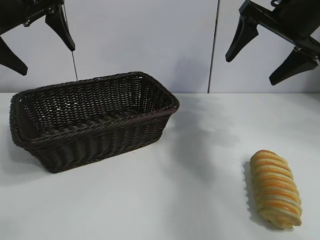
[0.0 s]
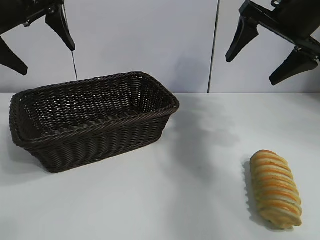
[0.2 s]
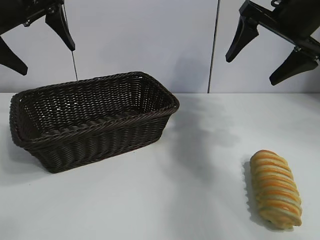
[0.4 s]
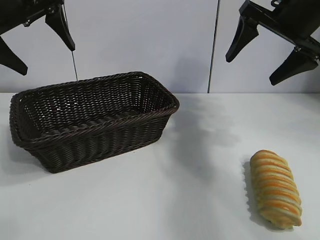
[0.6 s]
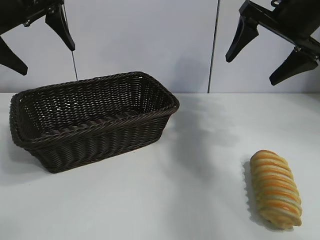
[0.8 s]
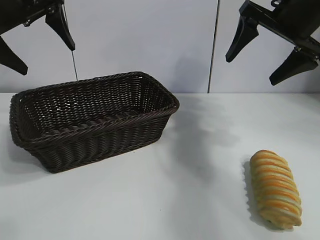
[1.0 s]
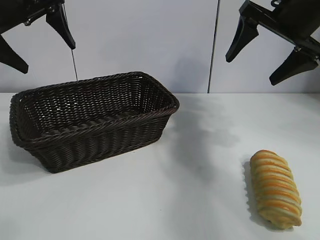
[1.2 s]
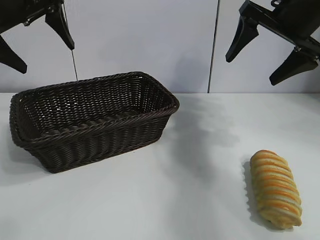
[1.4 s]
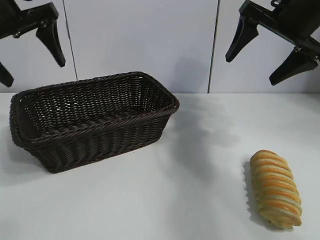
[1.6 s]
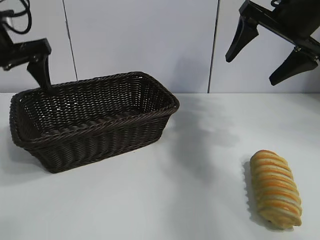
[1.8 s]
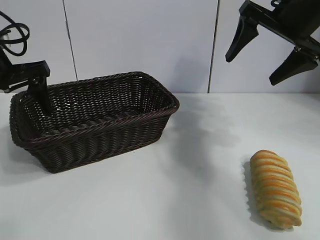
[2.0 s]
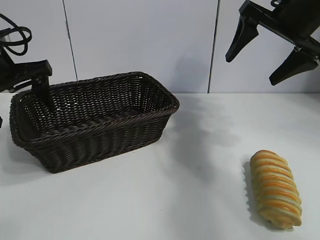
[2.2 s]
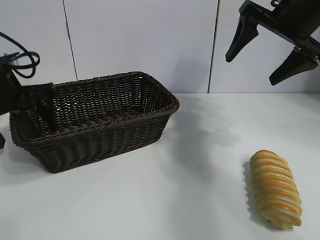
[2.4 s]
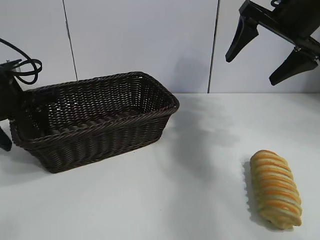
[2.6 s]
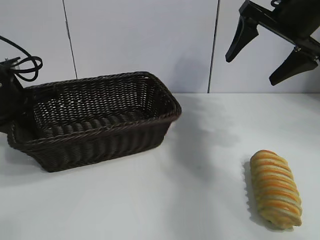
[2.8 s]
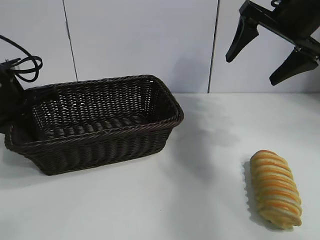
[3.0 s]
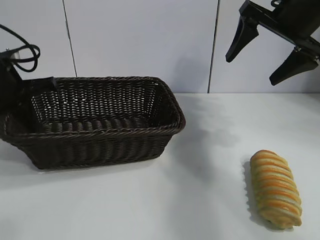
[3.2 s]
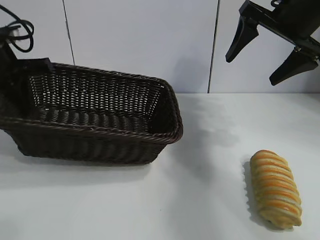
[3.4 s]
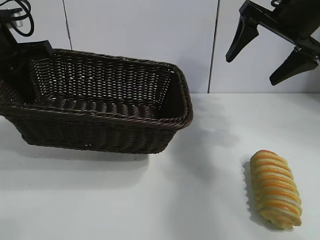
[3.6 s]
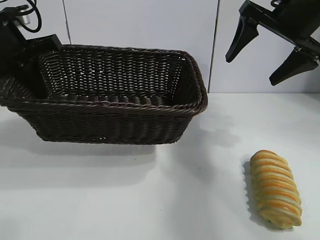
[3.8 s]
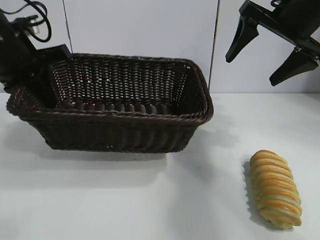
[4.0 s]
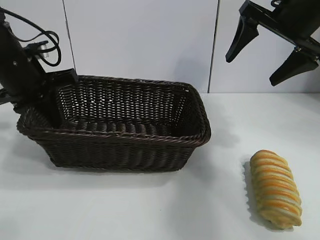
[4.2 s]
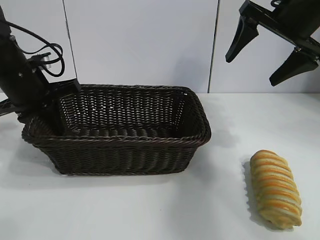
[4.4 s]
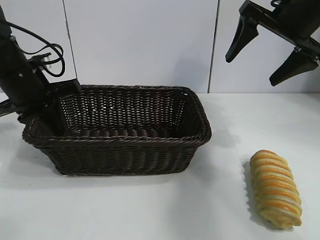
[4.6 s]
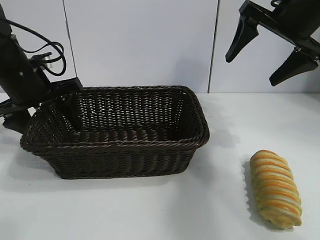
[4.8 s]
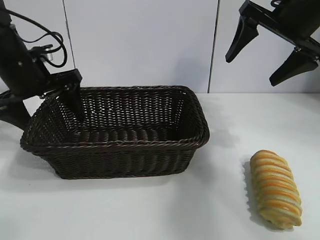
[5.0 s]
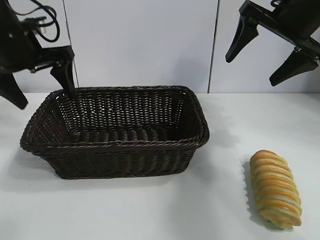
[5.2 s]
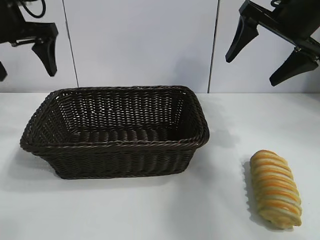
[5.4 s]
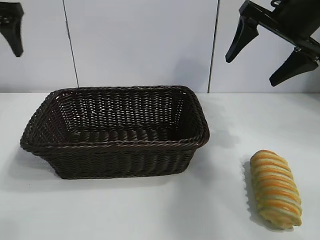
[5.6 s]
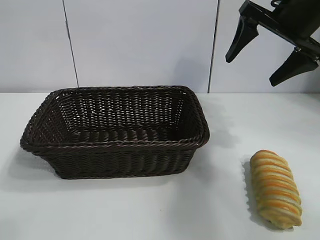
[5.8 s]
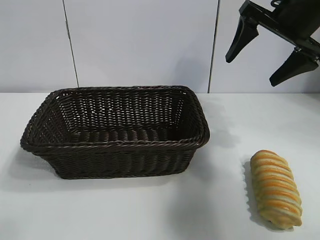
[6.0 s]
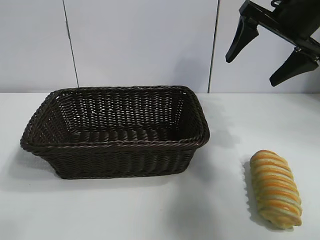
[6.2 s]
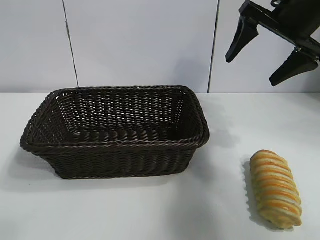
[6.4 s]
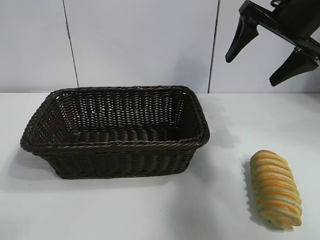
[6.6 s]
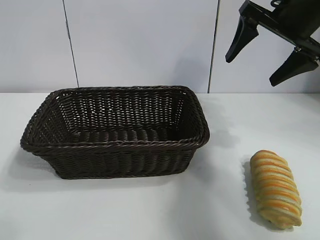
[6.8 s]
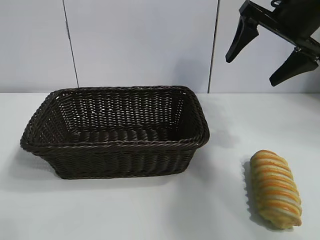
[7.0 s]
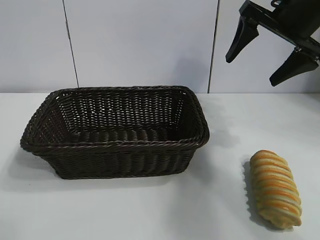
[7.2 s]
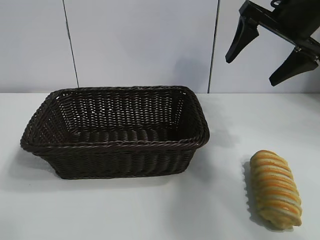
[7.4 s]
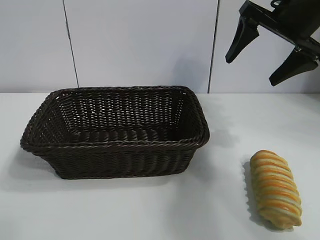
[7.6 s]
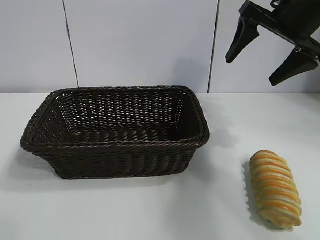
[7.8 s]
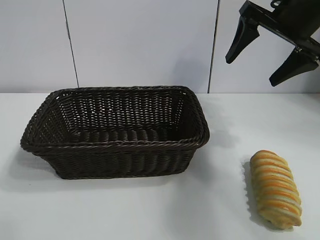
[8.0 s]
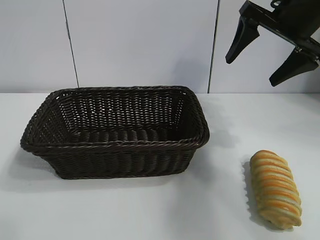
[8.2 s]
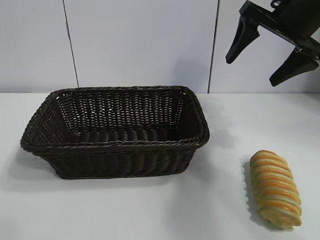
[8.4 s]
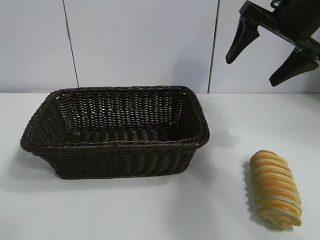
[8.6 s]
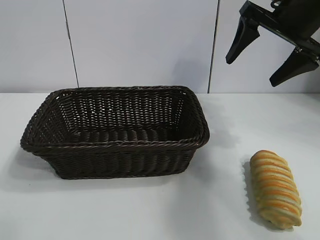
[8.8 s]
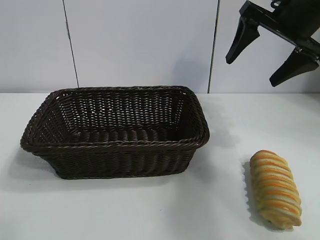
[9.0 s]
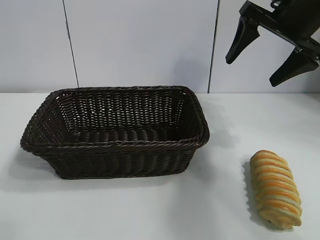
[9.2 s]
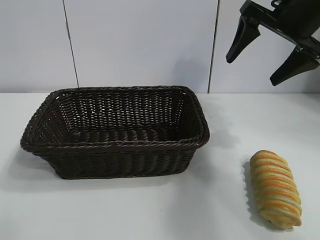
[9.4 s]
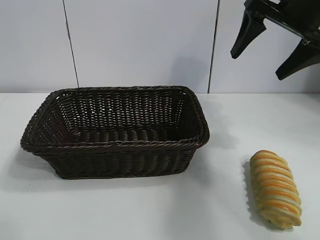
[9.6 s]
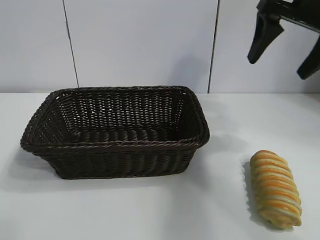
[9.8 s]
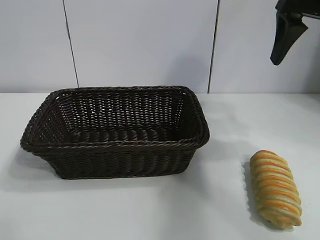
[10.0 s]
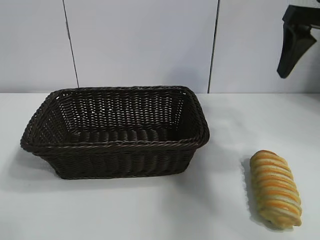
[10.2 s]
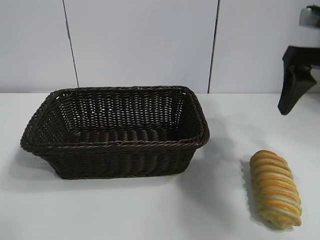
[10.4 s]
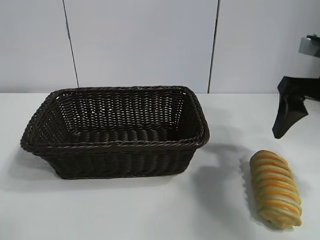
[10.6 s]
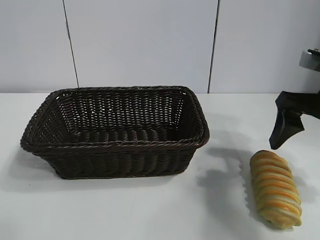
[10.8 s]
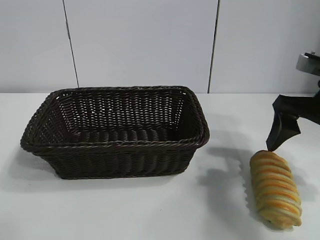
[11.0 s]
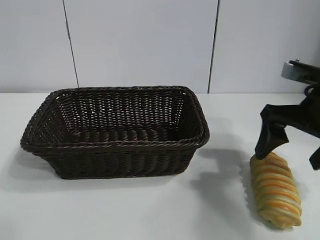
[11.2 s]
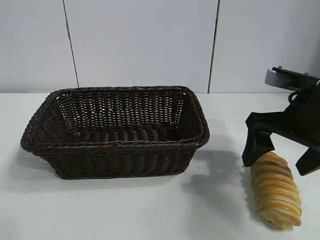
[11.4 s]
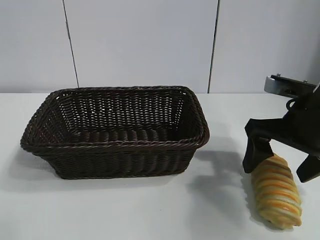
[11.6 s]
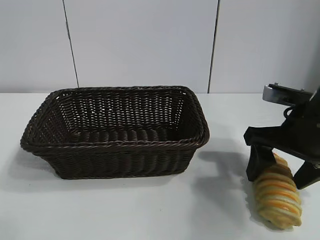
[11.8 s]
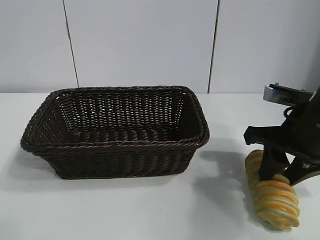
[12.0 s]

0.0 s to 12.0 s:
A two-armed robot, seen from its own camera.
Task of the whole recording: pick up the long bread and put it into the basket.
Step, 1.2 to 2.6 s: Grasp the basket with the left gripper.
Step, 3.0 to 4.8 s: Place the basket in the center of the table with the left gripper.

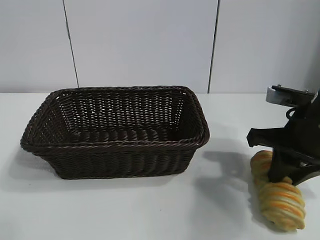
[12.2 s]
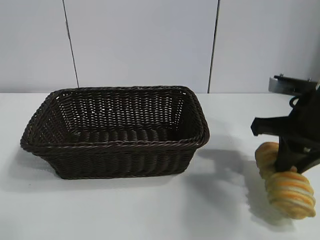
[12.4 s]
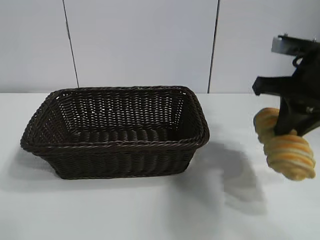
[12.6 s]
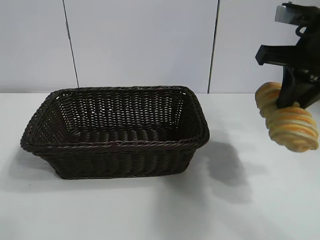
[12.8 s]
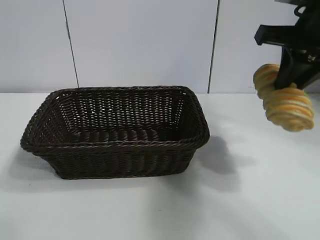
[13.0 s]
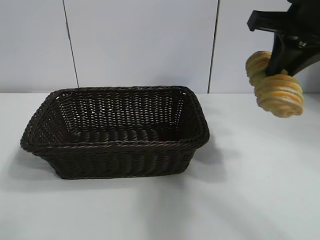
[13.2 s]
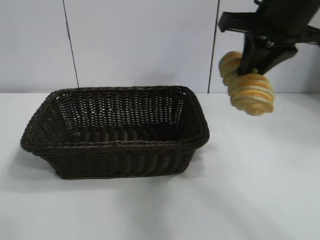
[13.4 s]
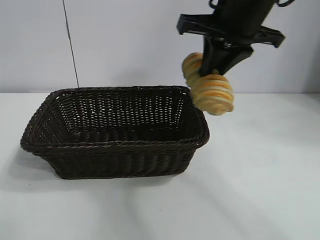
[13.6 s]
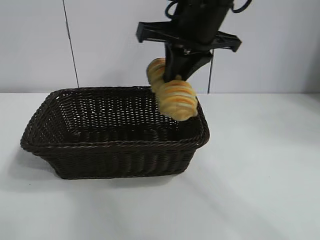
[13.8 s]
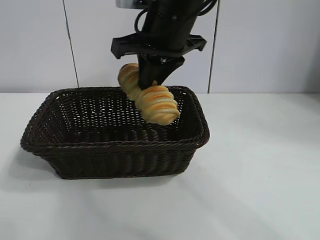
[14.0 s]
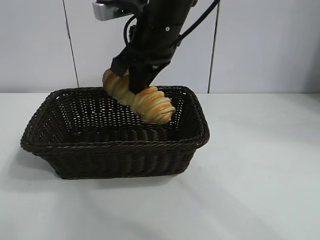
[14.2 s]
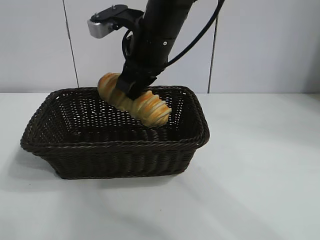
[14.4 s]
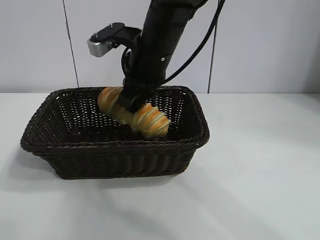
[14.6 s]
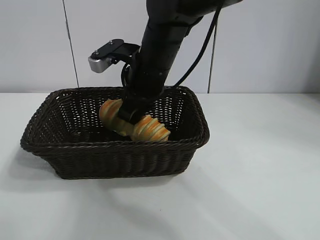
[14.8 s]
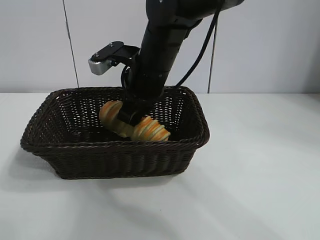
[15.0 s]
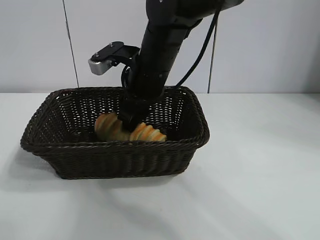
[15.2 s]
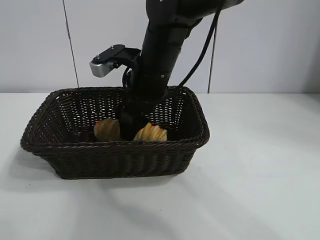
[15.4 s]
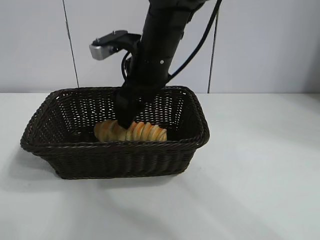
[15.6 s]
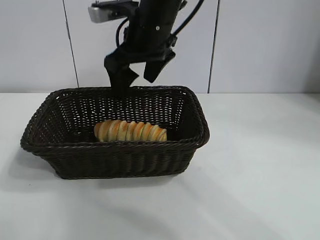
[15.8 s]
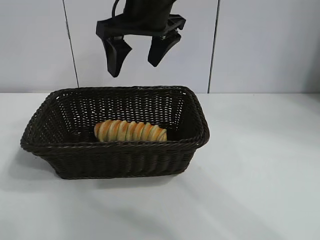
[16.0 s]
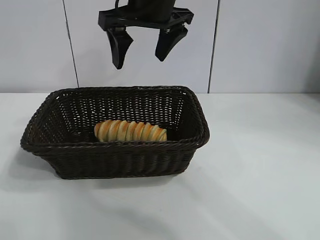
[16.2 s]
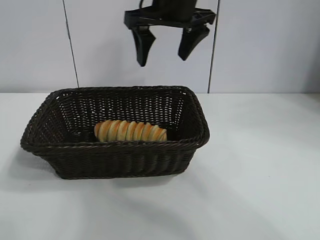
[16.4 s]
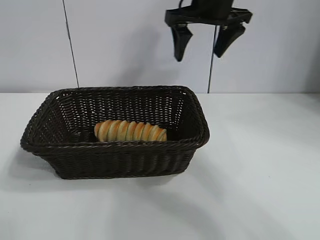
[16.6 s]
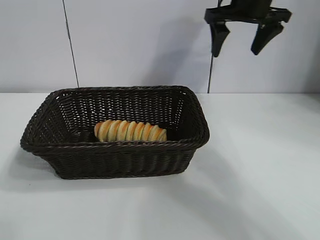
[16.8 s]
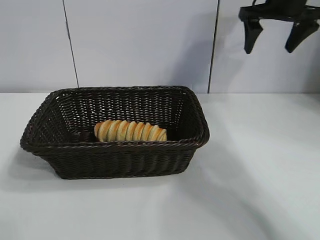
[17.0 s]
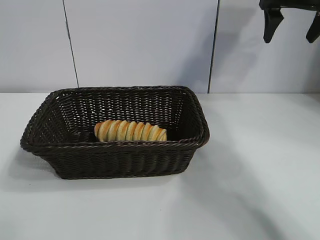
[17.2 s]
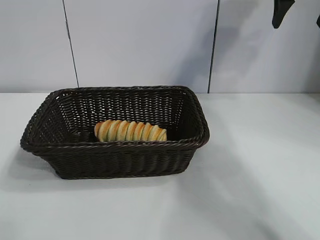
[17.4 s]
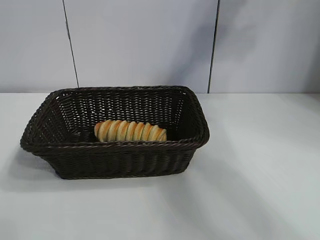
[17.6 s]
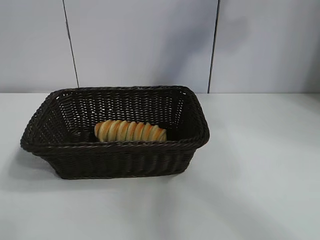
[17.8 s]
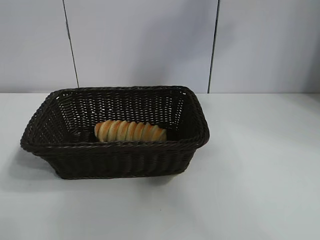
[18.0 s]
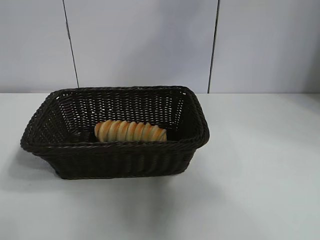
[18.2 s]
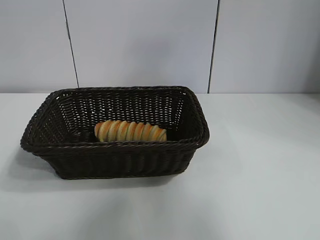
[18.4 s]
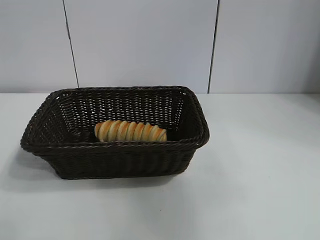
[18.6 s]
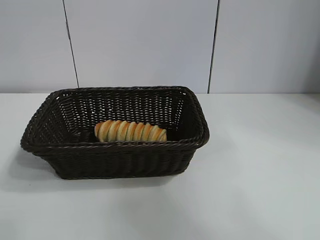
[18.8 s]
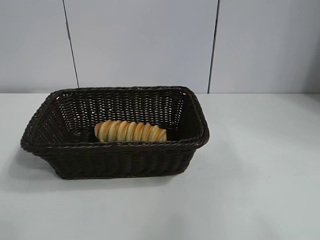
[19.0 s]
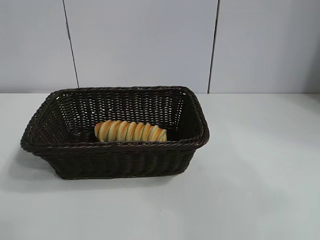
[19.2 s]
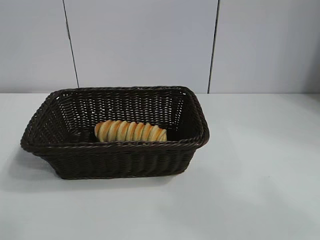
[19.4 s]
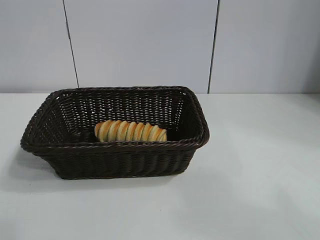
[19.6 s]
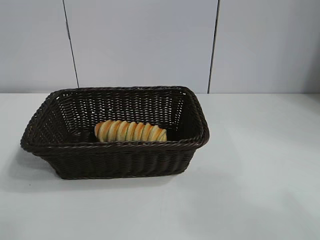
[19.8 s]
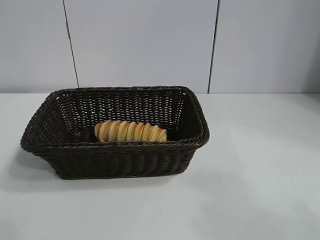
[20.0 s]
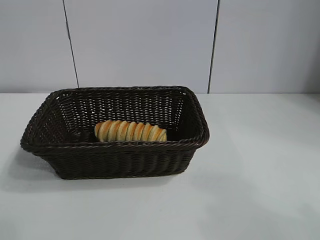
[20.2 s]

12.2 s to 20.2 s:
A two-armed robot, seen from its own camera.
Task of the whole recording: pick up the long bread and put it into the basket.
Step, 12.4 to 15.6 s: Place the long bread in the basket with right gripper.

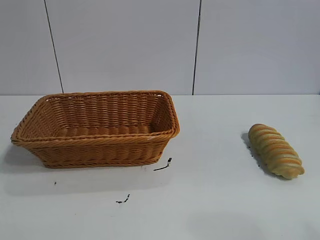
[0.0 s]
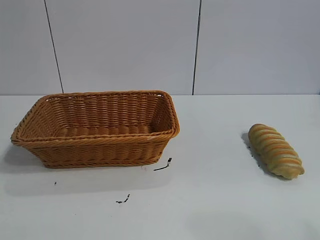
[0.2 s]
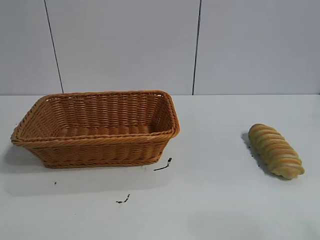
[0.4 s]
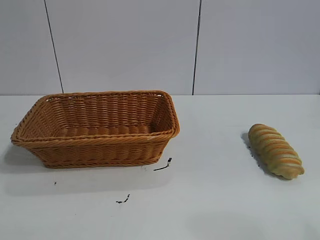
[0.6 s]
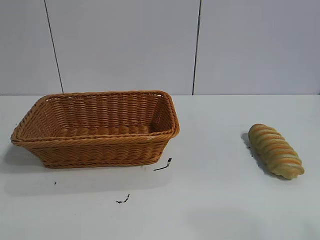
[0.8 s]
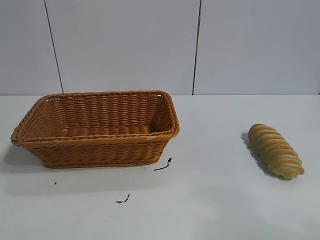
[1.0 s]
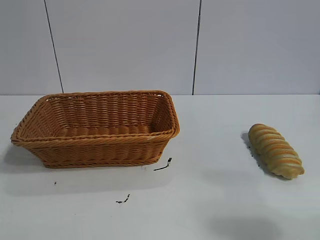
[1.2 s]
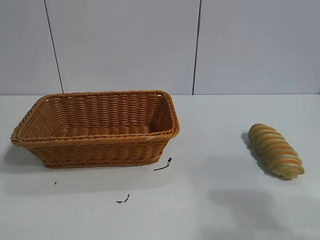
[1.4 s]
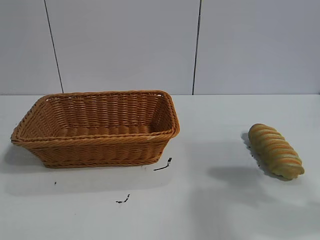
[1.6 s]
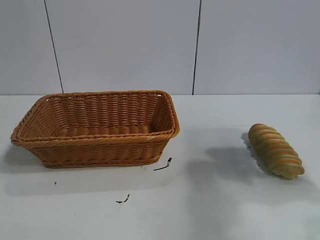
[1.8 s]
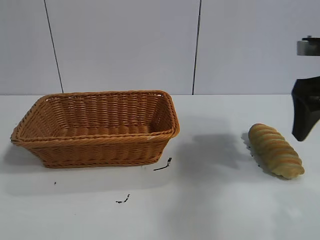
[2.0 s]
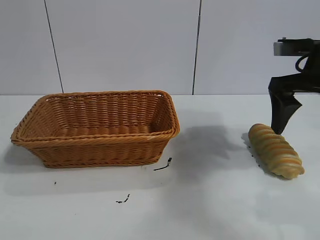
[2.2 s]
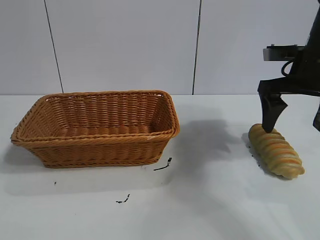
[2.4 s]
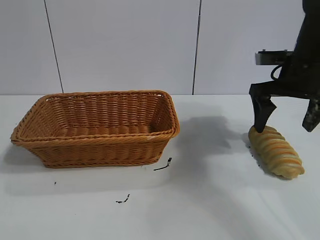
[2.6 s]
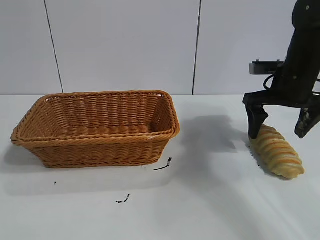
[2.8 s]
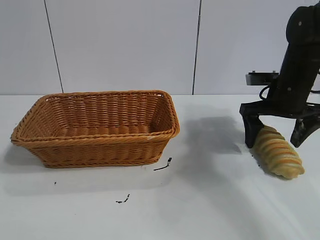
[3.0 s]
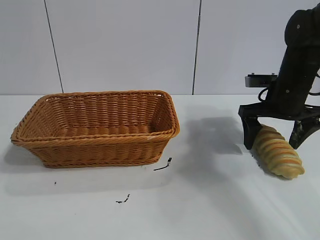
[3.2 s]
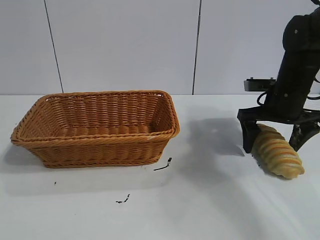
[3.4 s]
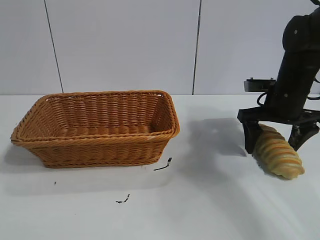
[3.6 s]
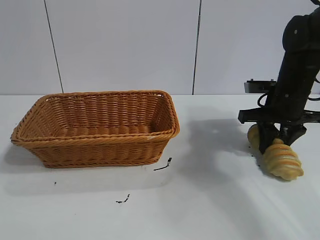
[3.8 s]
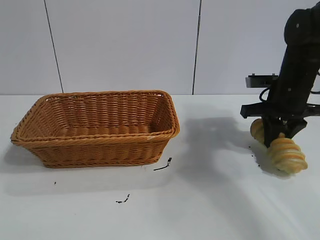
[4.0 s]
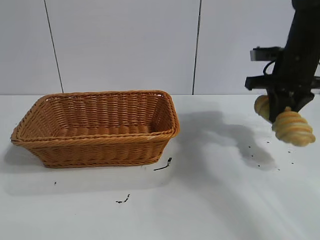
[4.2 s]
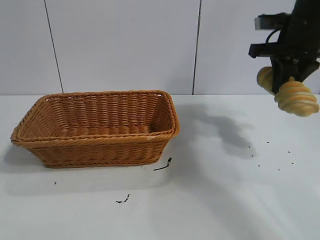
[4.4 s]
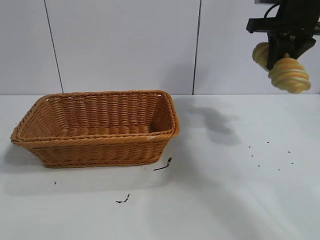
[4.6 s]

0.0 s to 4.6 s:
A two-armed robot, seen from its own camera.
Task of the whole recording: pick up the long bread and put it into the basket.
Step, 2.0 to 3.8 s: Grasp the long bread with right gripper.
